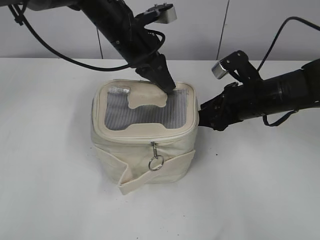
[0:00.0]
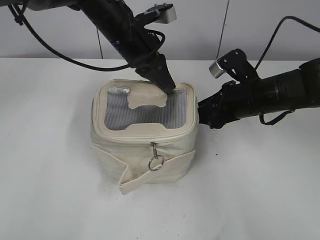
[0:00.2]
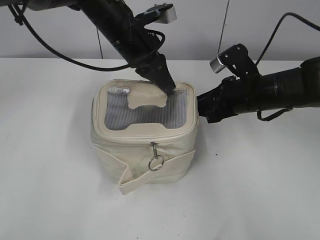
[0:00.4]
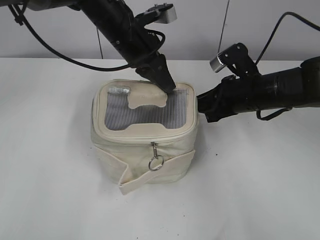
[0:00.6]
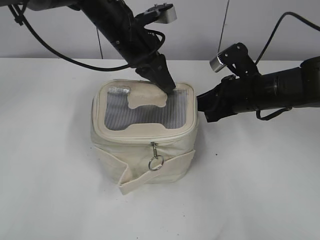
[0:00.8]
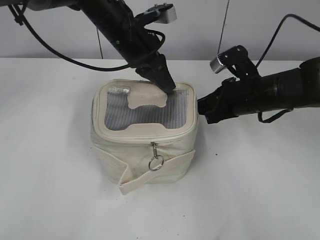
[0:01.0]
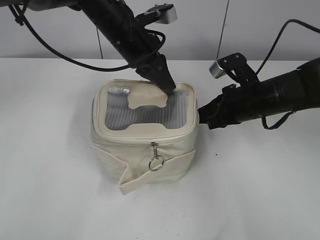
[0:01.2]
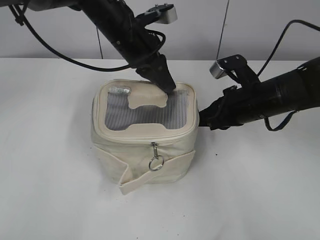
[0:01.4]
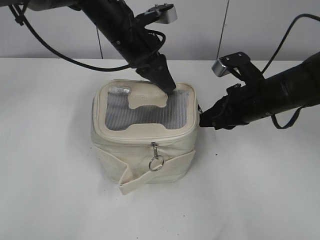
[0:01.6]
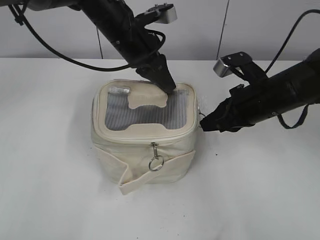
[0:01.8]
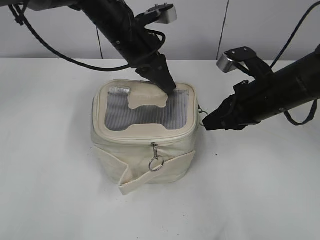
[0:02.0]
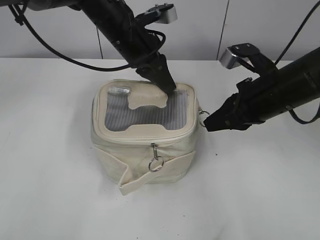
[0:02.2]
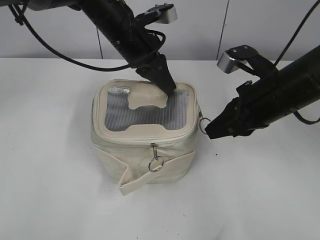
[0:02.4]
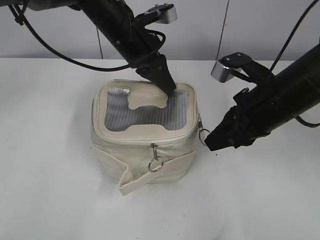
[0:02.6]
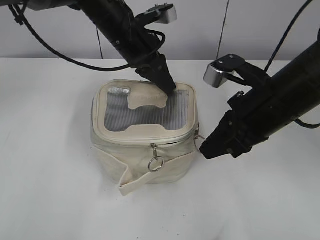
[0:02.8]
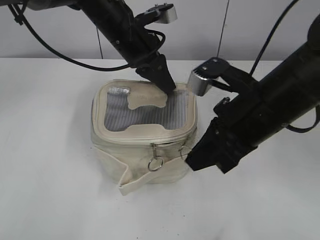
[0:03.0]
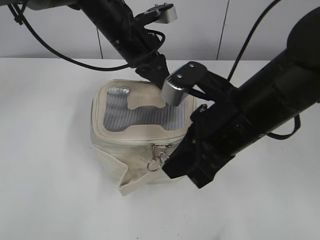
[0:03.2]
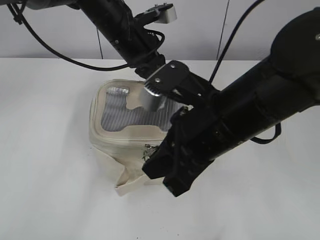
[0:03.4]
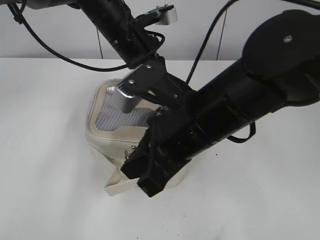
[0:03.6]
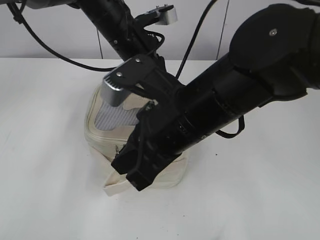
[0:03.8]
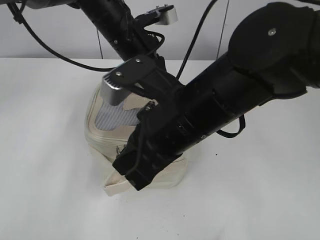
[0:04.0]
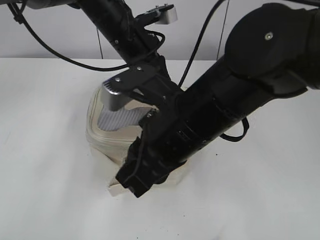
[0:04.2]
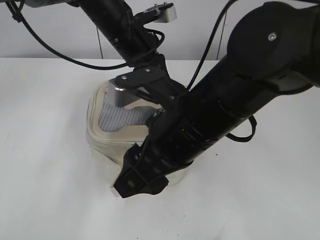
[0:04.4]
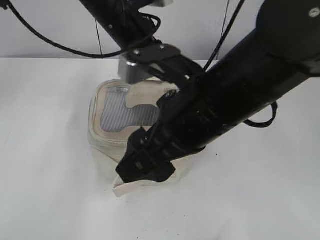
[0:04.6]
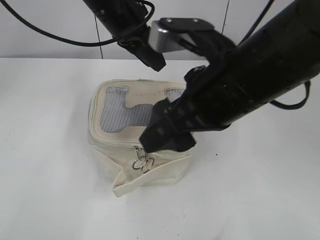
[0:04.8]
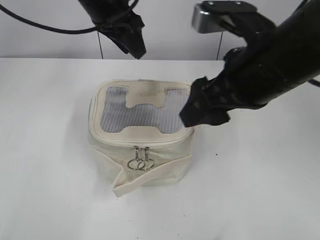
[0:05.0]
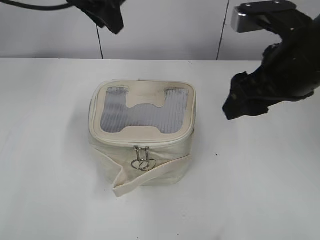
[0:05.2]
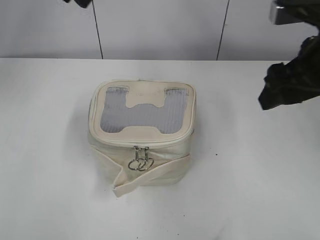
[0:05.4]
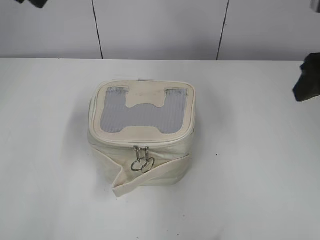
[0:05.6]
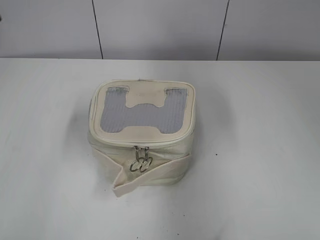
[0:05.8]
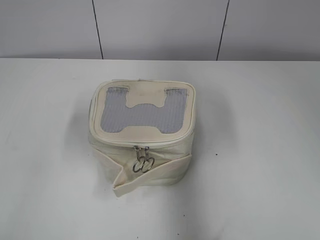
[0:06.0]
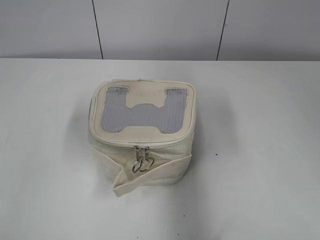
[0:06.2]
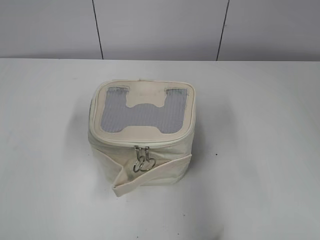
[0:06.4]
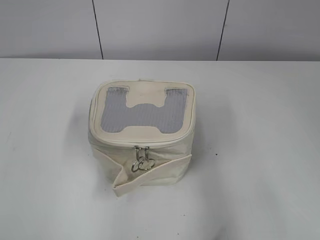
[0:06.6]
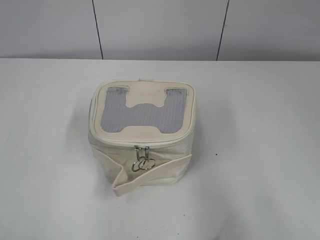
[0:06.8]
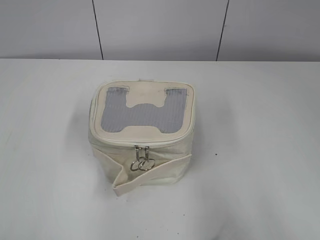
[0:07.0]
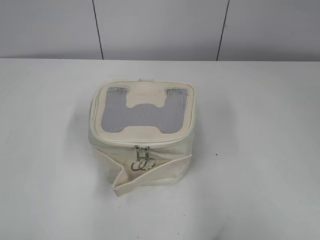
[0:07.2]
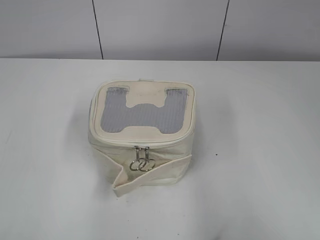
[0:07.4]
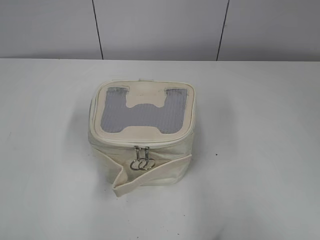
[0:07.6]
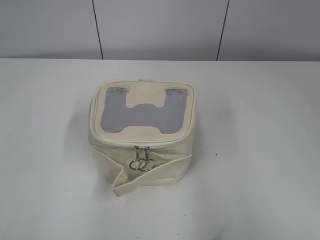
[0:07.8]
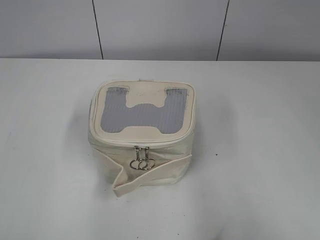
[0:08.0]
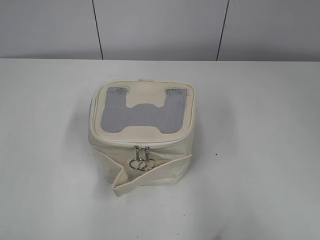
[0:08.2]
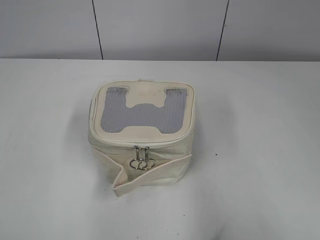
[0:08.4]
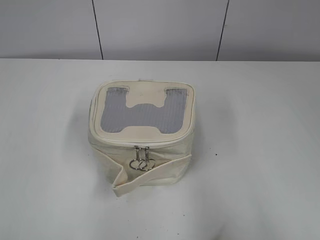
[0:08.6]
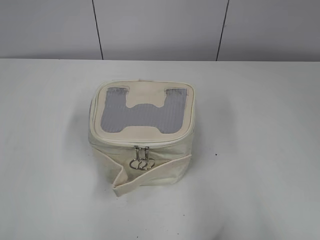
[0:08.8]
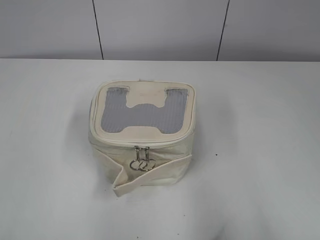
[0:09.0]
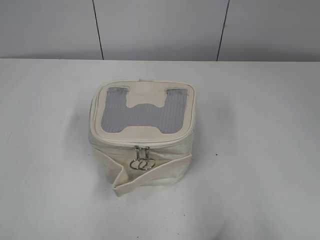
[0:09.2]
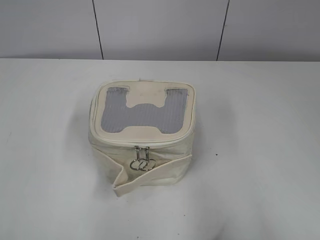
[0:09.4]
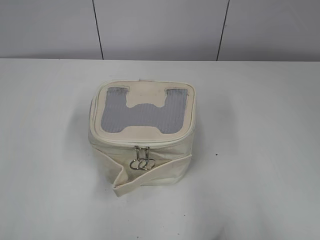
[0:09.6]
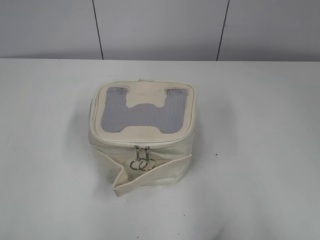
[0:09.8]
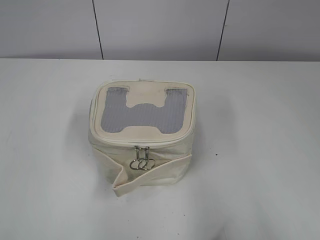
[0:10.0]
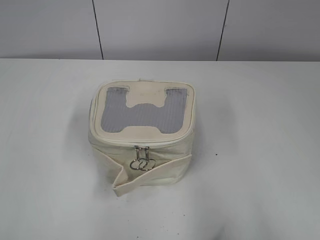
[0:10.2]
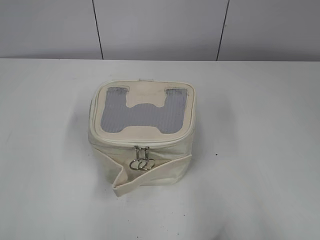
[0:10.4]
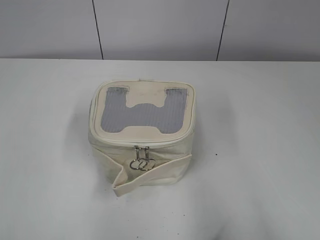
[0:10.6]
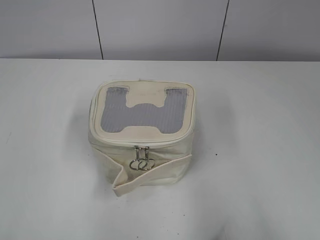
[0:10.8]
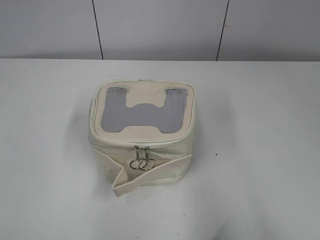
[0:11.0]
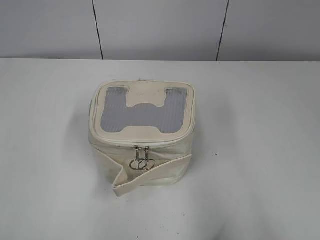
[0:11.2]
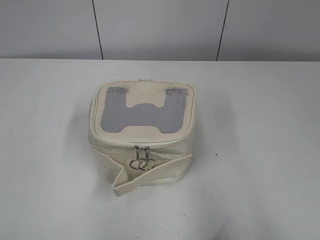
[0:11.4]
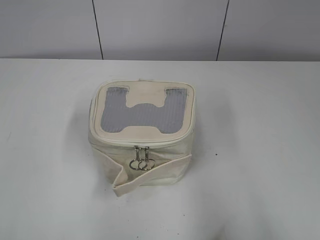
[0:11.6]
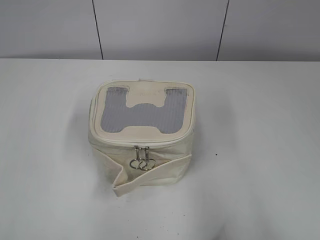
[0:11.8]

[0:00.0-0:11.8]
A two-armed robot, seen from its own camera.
0:00.0 to 0:01.4: The right gripper closes.
0:01.4 to 0:03.0: The right gripper is displaced backward and upward by about 10 cm.
0:03.0 to 0:04.4: The right gripper is displaced to the left by approximately 10 cm, and opens its fingers.
0:04.4 to 0:06.0: The left gripper is displaced to the left, backward and upward by some 30 cm, and opens its fingers. Meanwhile the right gripper is displaced to the right and upward by some 25 cm.
0:06.0 to 0:07.4: The right gripper travels backward by roughly 20 cm; the left gripper shifts some 20 cm backward and downward.
0:08.8 to 0:11.8: Neither gripper changes place.

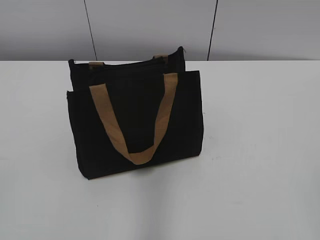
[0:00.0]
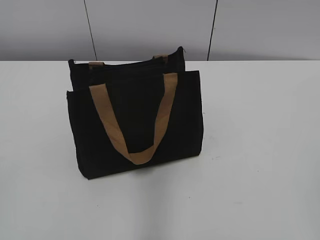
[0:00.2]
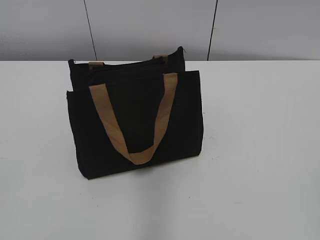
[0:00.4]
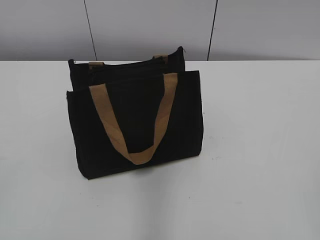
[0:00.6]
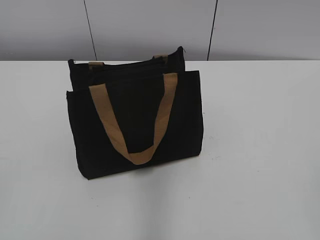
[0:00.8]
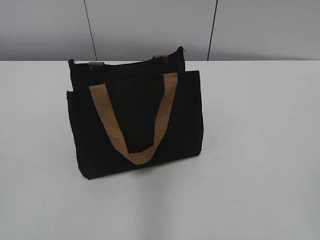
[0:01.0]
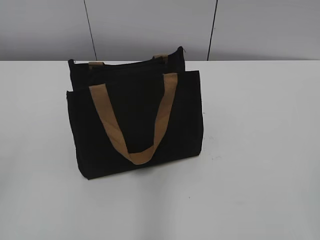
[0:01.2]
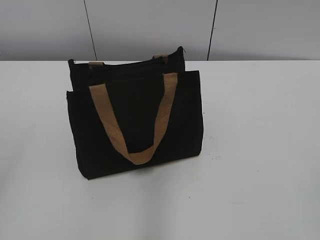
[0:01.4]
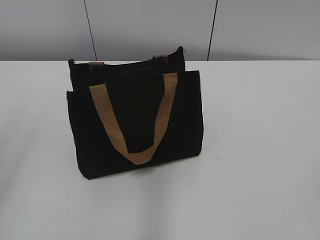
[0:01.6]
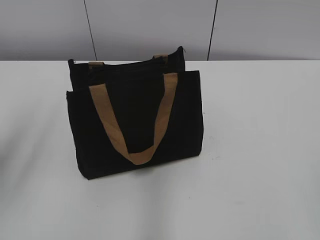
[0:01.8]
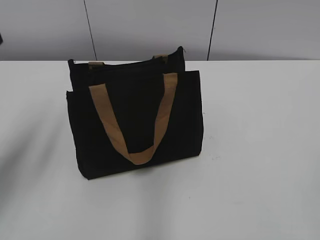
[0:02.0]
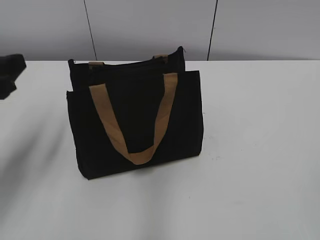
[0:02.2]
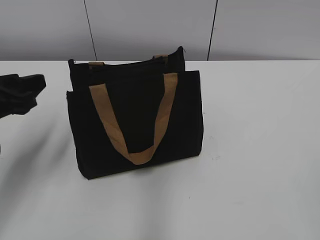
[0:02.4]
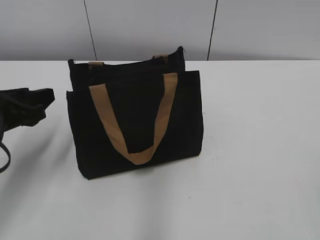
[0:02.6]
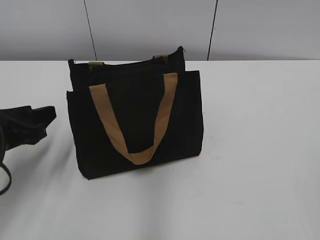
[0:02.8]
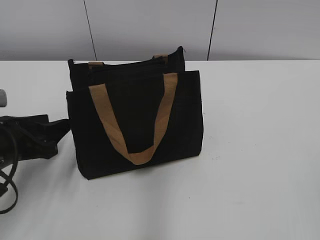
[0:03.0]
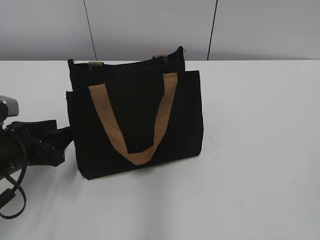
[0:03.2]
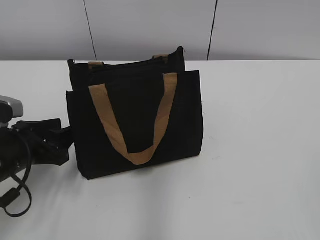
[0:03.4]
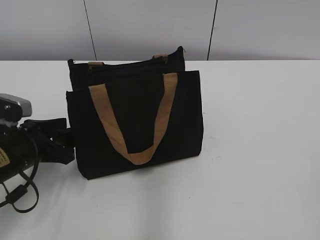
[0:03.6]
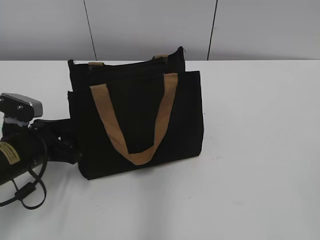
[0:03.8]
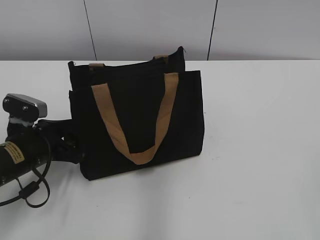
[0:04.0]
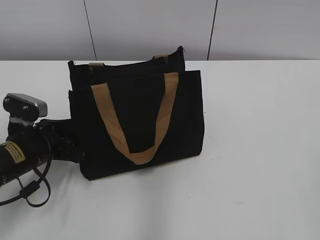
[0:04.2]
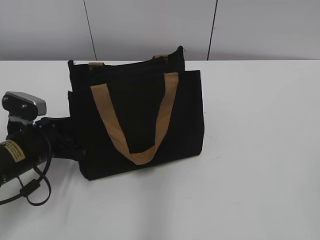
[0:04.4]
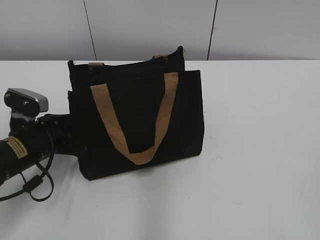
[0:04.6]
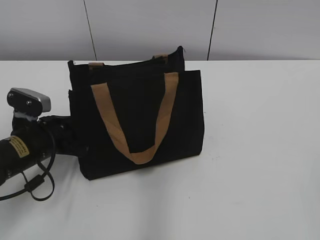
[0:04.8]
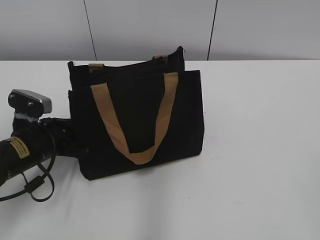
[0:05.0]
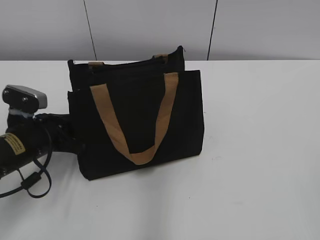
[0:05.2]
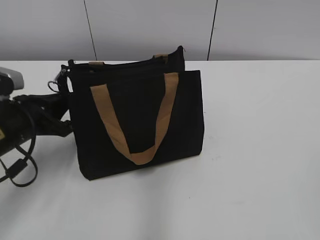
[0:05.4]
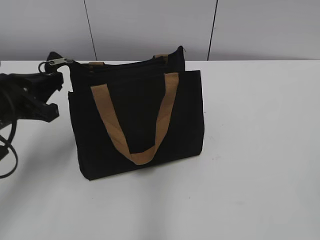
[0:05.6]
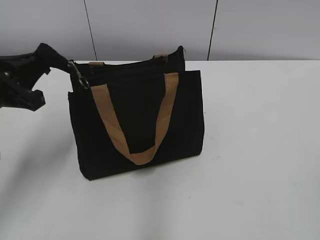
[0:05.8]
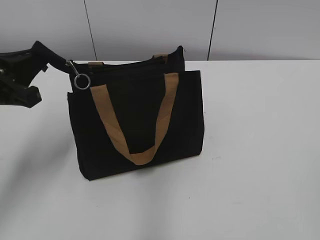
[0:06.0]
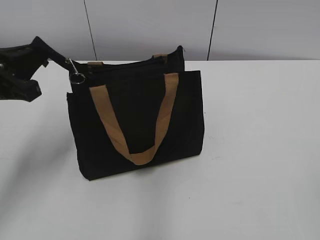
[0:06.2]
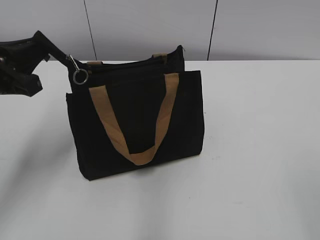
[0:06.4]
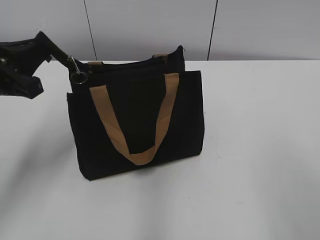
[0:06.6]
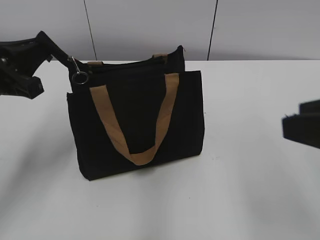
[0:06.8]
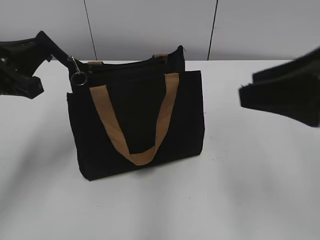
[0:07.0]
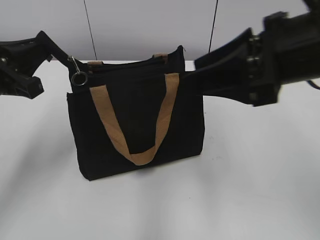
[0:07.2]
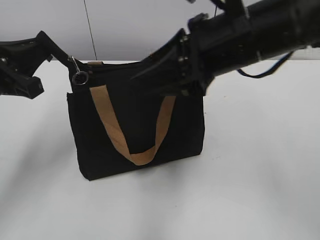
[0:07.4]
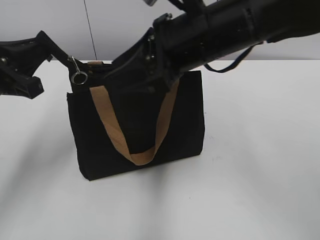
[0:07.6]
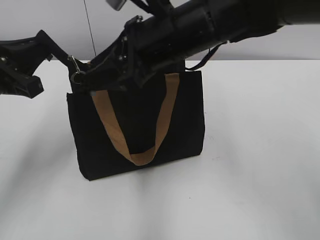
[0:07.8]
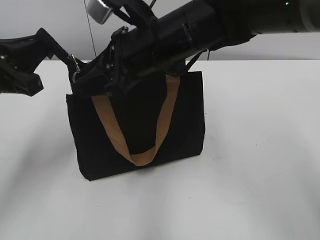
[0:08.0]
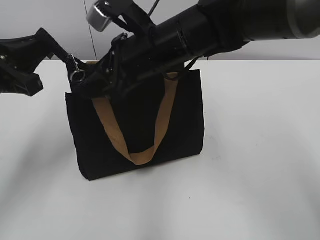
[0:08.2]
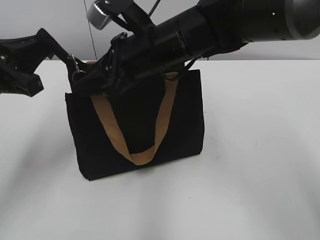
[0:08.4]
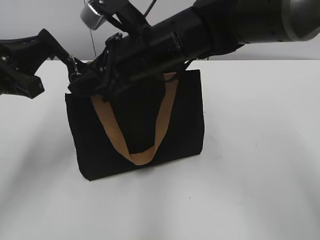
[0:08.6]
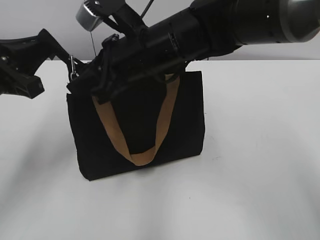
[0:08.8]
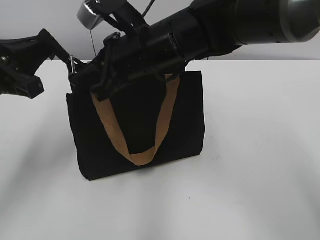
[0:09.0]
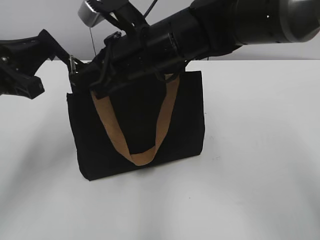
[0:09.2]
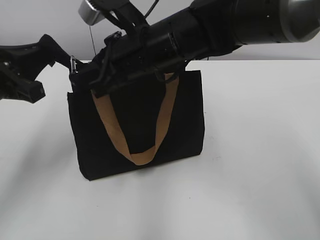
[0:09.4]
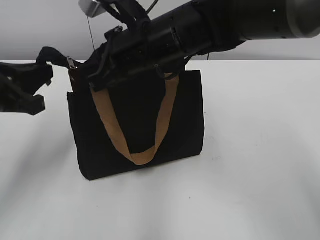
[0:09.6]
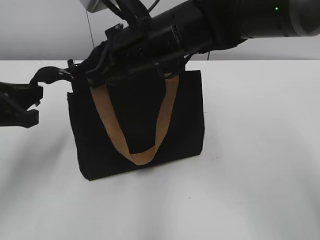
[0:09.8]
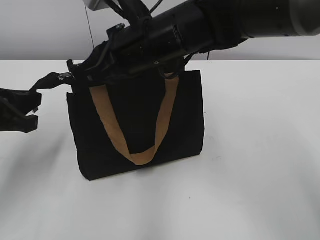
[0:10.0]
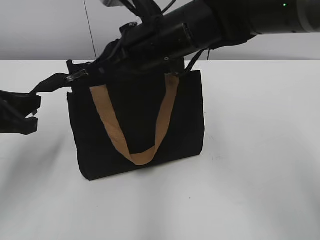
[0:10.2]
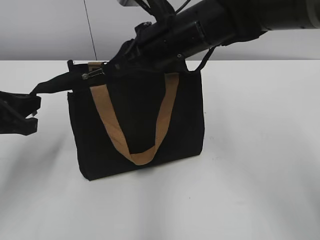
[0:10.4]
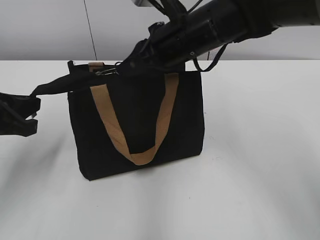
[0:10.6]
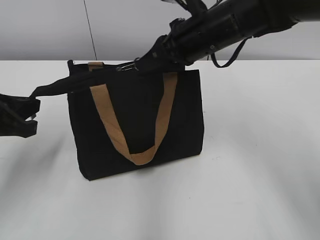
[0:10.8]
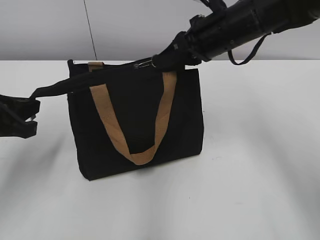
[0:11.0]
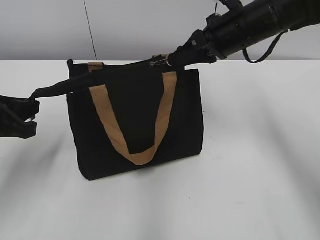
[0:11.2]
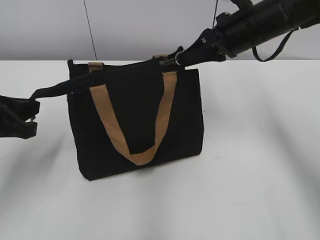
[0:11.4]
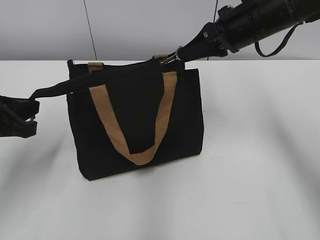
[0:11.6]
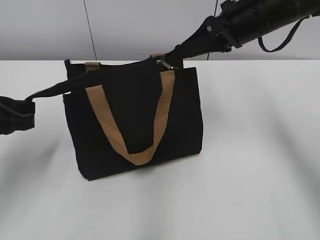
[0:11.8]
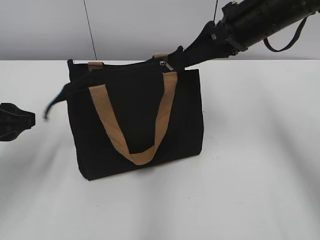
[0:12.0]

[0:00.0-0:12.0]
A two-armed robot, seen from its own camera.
Step, 0:00.0 to 0:11.6: Zip up the bag with your right hand.
0:01.6 to 0:03.0: The left gripper goes roughly 25 cm downward and forward.
0:03.0 to 0:04.4: The left gripper is displaced downward by roughly 5 cm.
0:04.4 to 0:06.0: The left gripper is displaced upward by approximately 15 cm, and closes its fingers.
0:06.0 to 0:07.6: The right gripper shifts roughly 35 cm forward and to the left.
0:07.6 to 0:09.0: The right gripper goes some 10 cm to the left, and closes up.
0:10.4 to 0:12.0: The right gripper heads to the right, covering approximately 15 cm, and opens.
